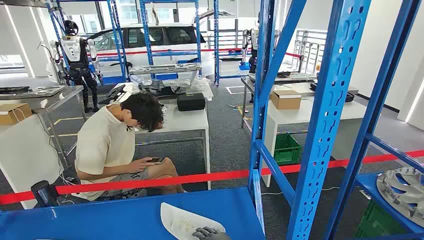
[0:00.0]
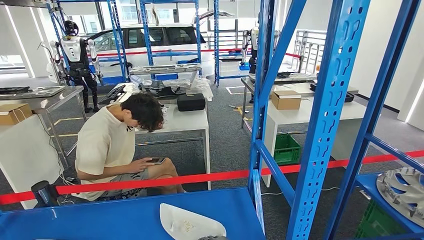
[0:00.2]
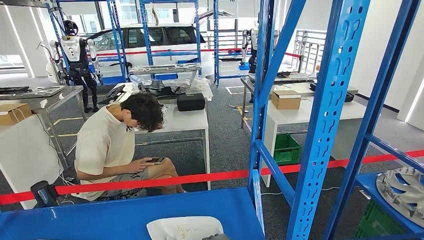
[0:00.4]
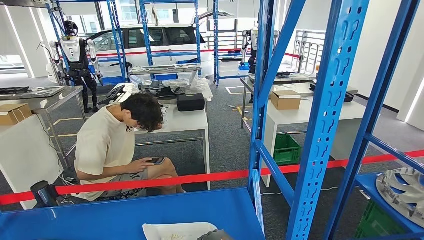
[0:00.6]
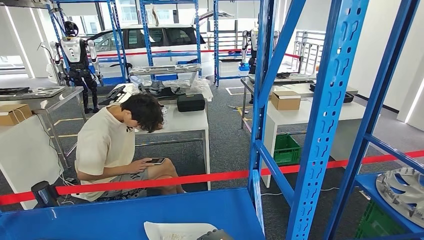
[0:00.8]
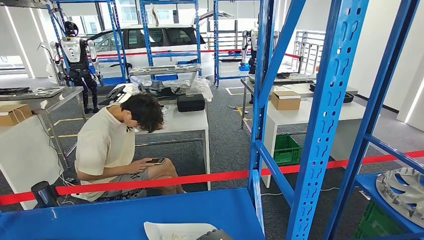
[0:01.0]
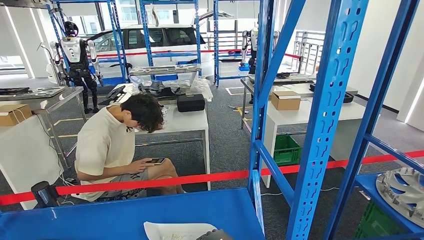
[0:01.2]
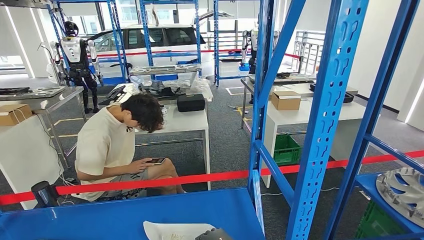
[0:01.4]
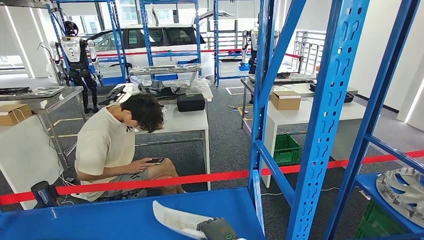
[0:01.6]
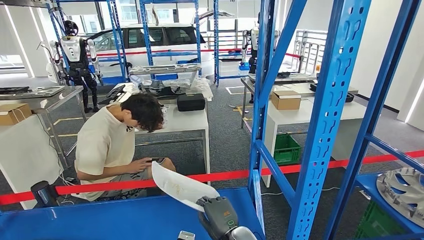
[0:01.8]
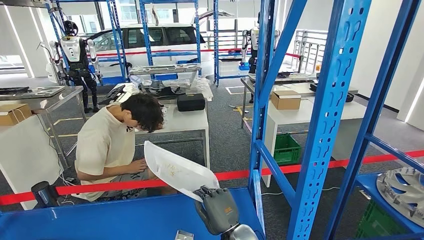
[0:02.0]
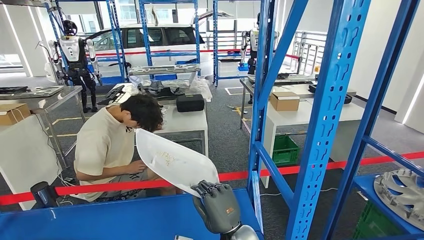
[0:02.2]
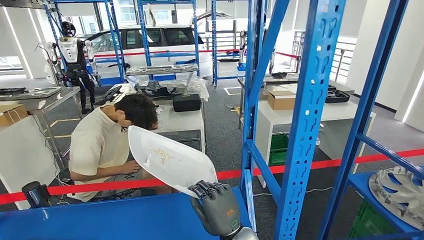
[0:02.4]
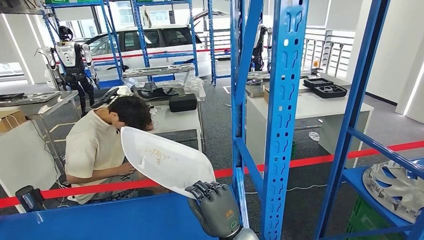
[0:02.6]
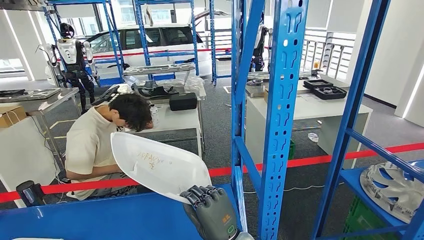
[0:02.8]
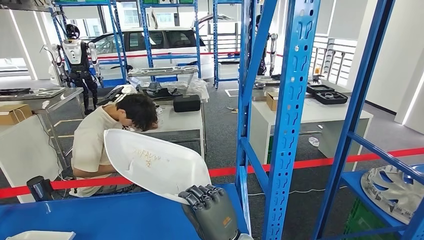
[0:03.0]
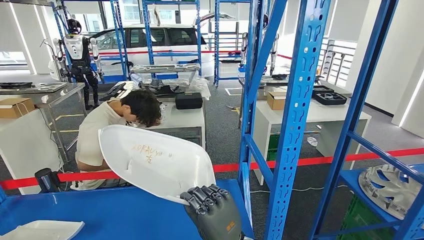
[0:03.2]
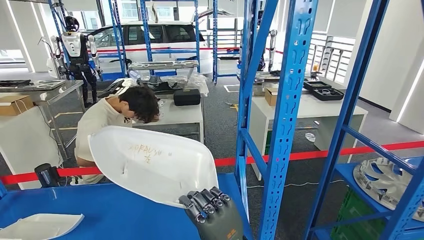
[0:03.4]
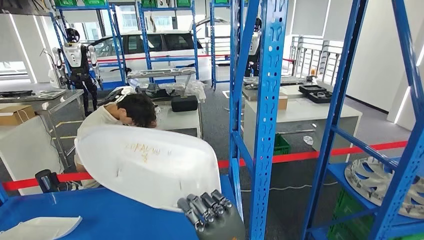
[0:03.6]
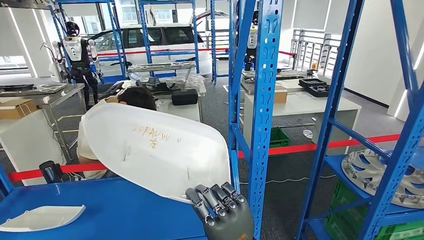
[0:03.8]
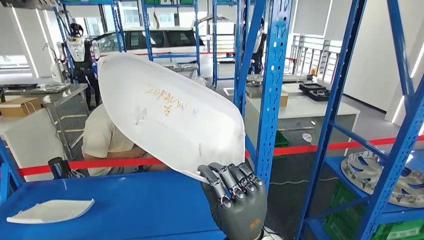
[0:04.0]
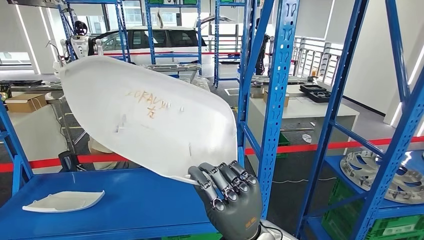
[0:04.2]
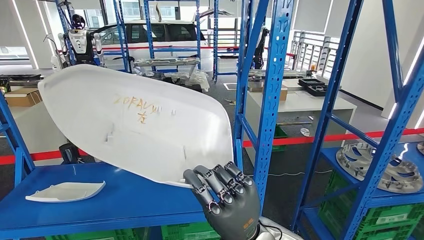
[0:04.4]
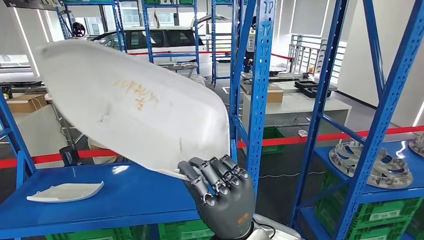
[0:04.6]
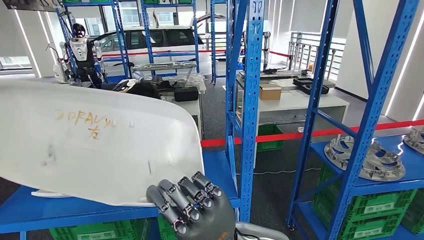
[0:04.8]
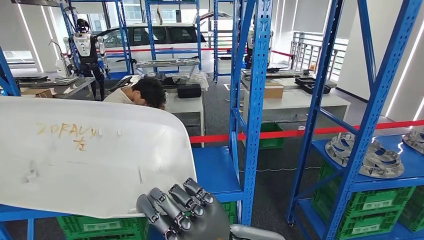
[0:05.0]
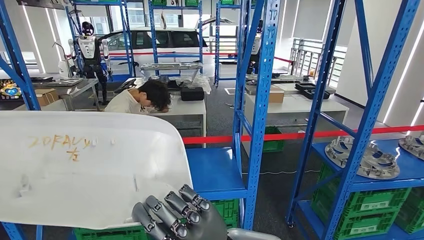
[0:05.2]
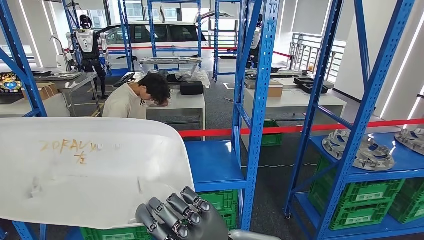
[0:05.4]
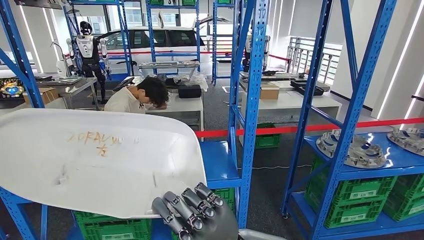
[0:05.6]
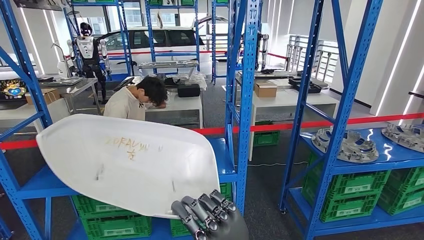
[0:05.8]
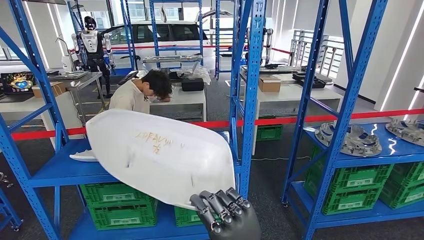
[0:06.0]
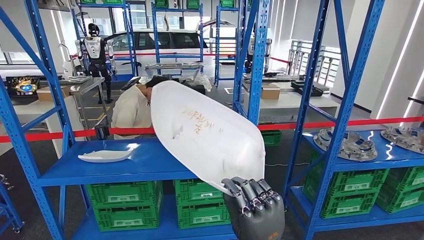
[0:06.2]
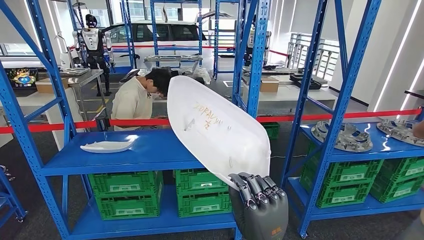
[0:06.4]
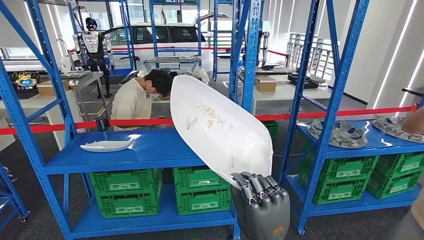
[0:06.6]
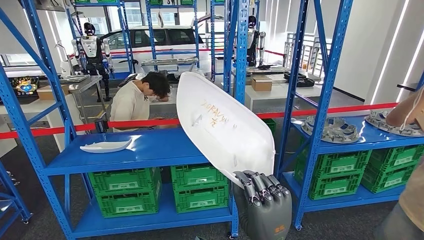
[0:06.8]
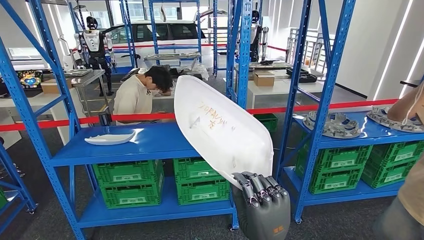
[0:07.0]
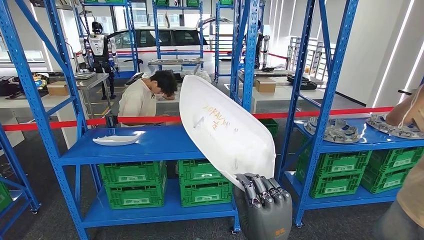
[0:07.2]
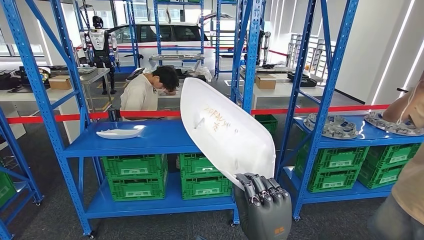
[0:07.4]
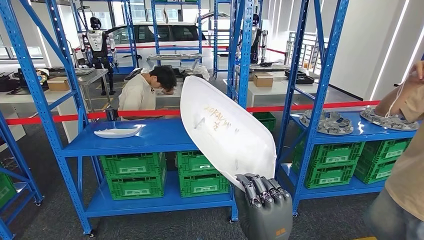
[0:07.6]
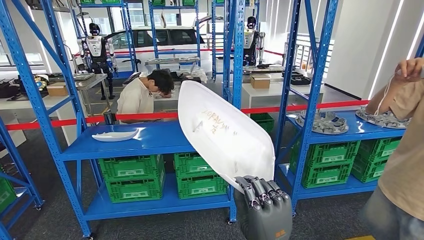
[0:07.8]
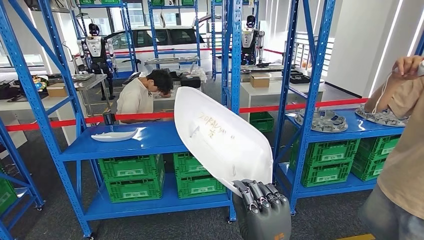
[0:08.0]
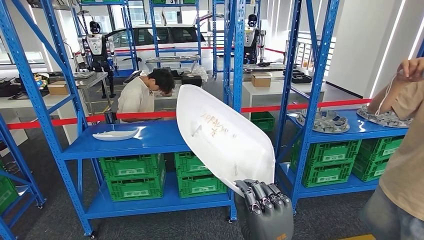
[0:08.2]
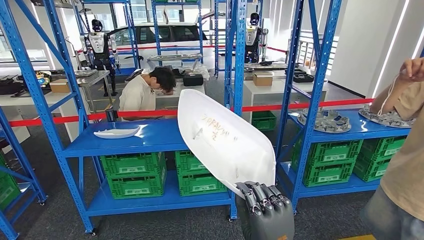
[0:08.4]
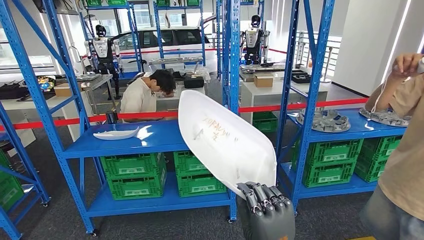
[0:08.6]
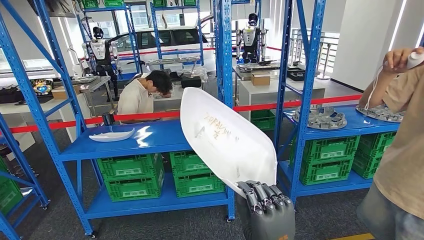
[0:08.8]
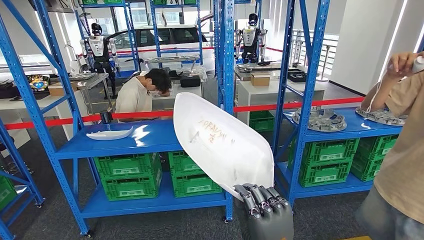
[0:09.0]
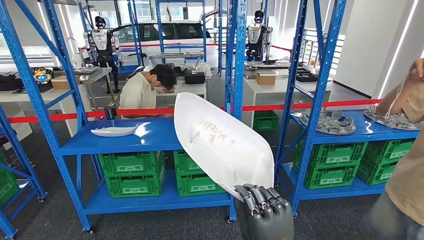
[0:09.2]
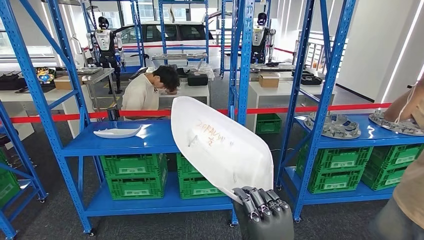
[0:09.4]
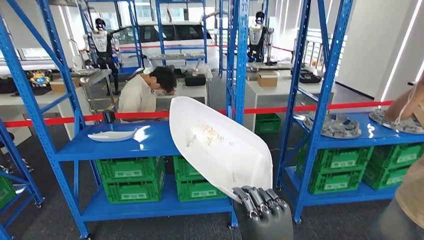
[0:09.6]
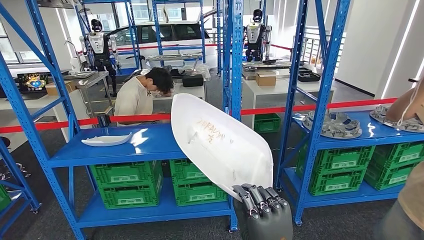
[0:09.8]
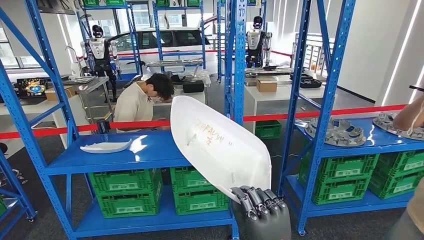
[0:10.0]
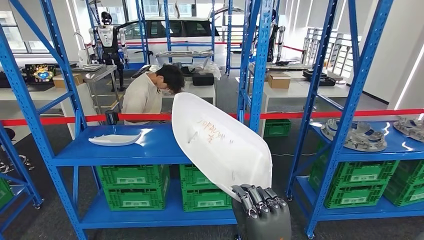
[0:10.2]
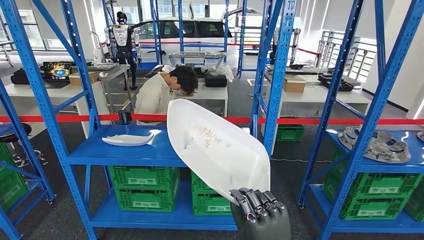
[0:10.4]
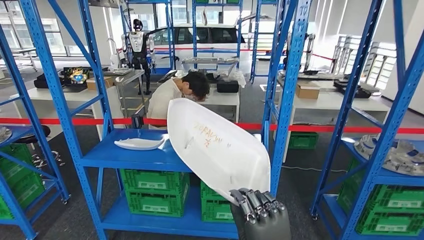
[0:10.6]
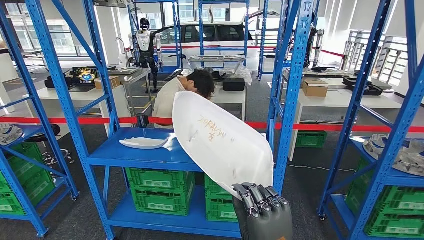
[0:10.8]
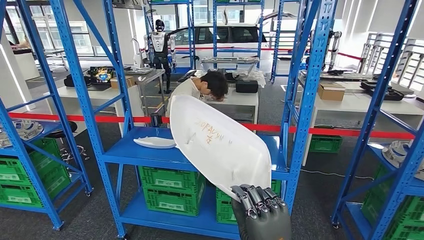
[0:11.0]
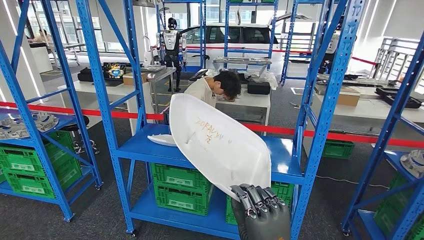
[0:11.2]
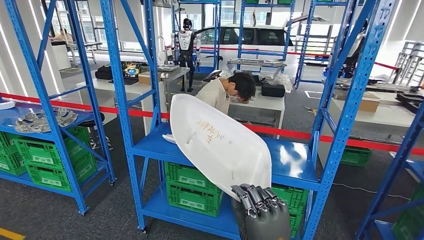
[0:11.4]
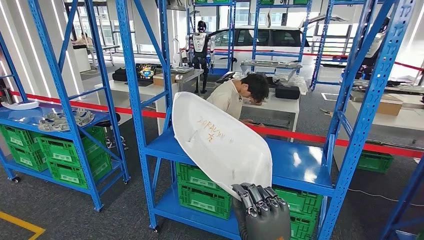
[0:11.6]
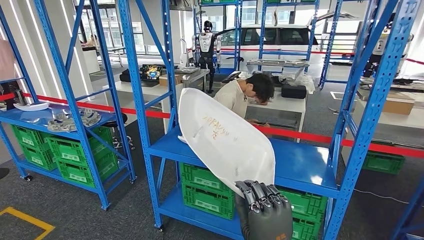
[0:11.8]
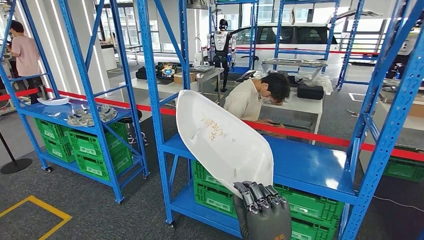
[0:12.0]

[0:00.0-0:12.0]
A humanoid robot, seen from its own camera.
Step, 0:00.0 to 0:06.4: Pick up the small parts from the shelf.

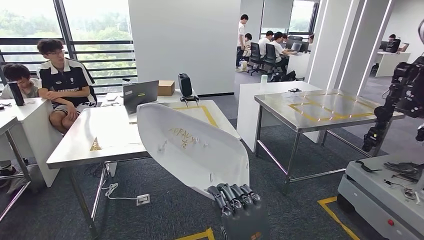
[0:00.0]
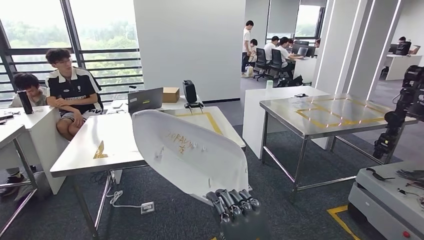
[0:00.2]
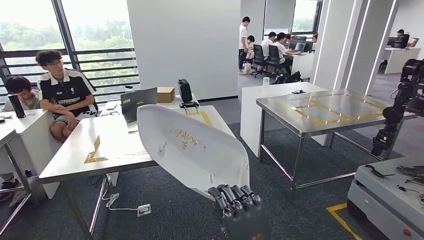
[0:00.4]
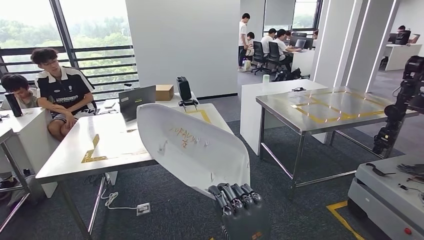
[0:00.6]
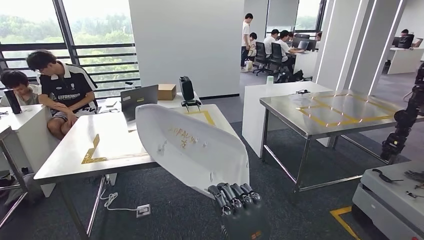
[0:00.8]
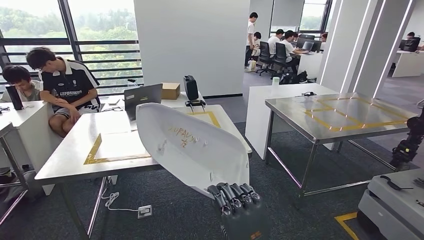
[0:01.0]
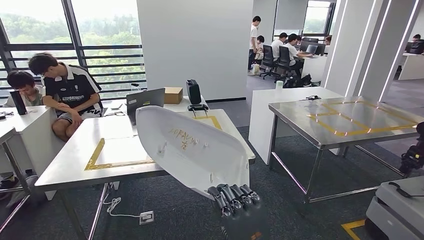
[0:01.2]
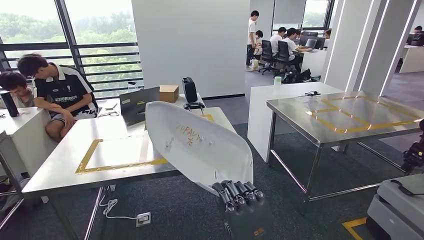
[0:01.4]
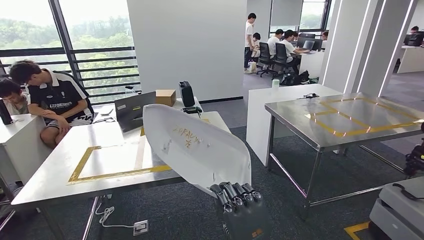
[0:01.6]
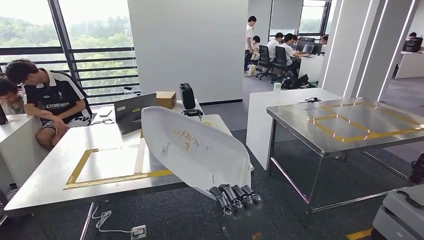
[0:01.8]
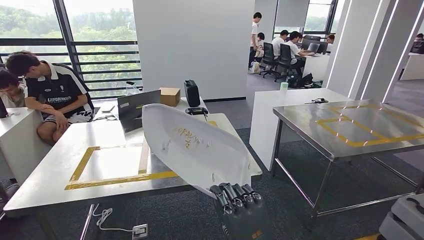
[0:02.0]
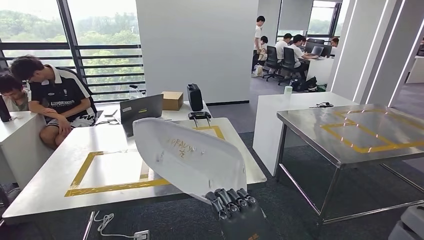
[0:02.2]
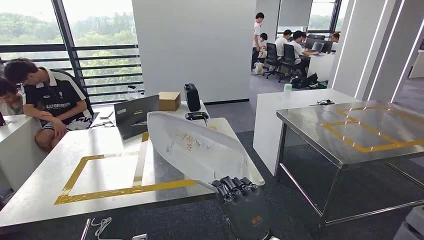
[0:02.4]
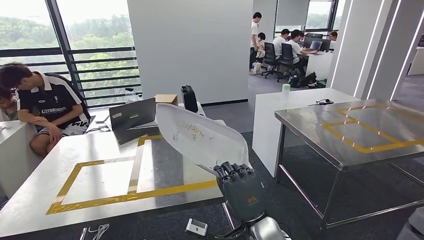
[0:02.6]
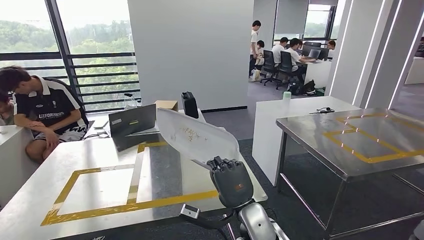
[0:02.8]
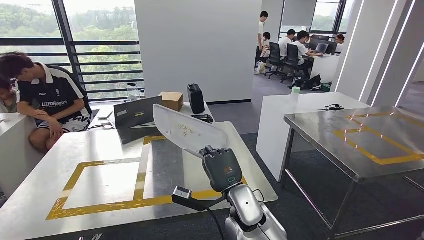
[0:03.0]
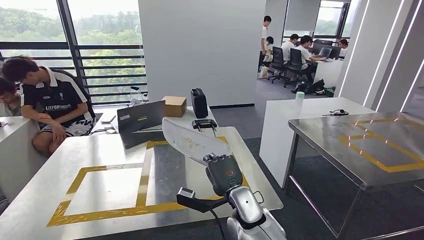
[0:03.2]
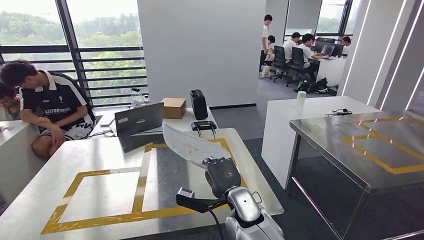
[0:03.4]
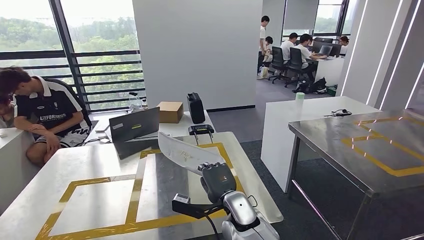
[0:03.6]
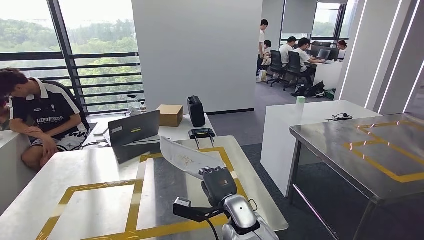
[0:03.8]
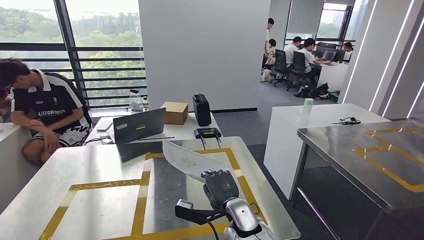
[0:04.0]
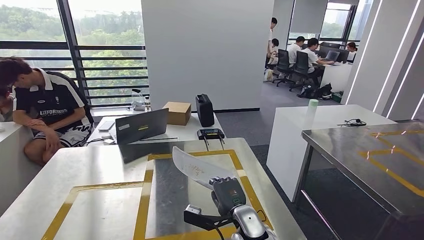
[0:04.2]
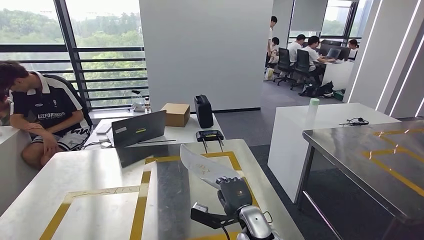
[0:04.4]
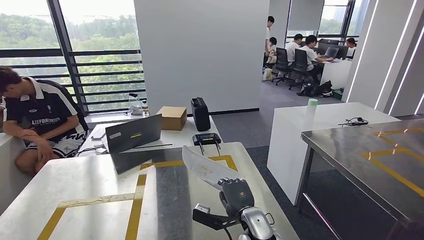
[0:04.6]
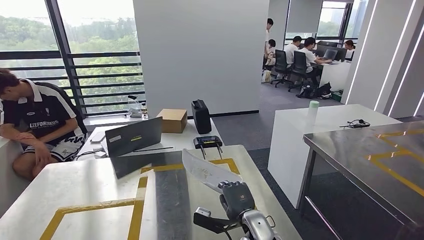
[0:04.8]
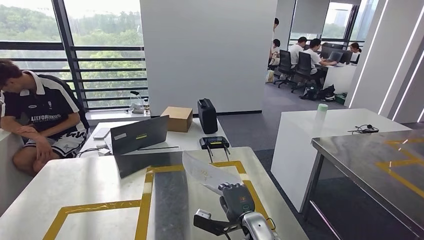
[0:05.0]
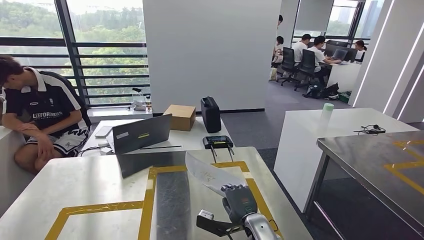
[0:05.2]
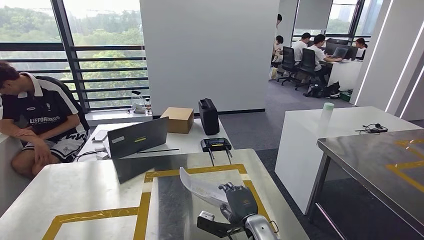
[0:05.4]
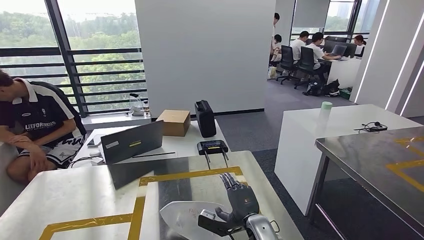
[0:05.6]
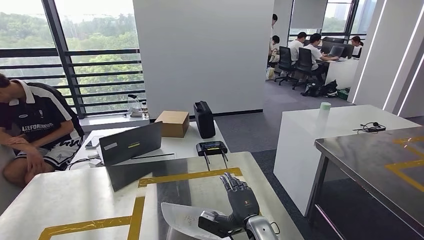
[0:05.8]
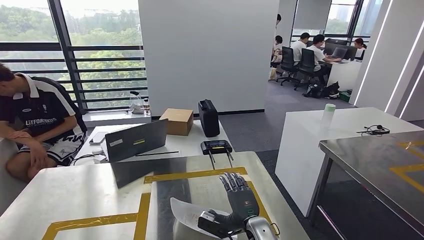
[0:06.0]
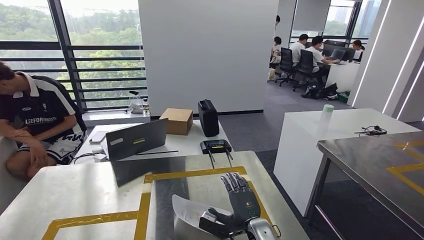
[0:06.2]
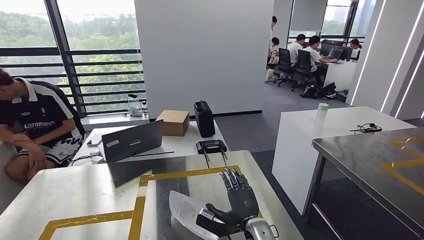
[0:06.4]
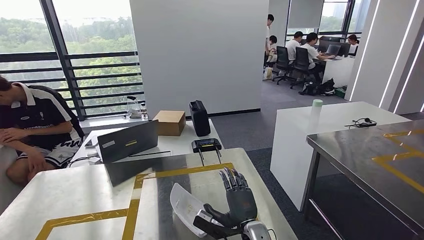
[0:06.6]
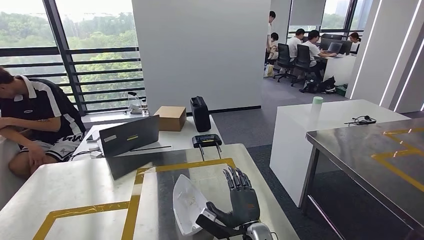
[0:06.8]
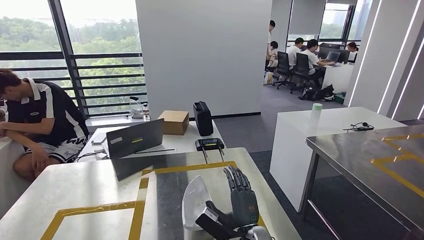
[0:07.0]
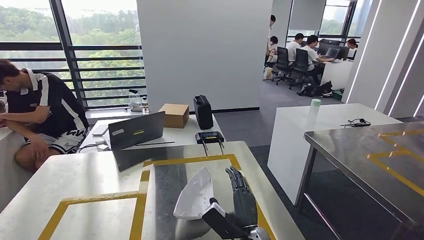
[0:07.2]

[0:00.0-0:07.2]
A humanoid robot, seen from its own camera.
Step, 0:00.0 to 0:03.8: Move the small parts to the workbench.
